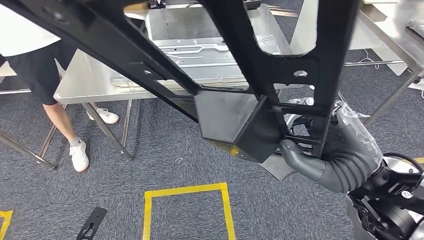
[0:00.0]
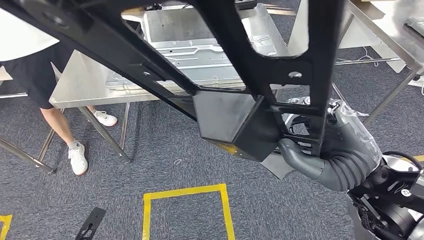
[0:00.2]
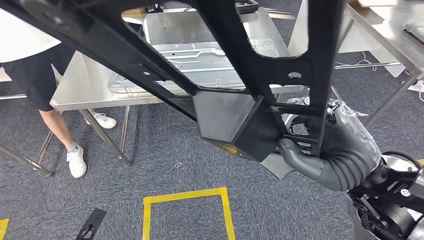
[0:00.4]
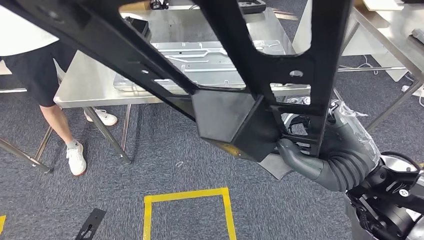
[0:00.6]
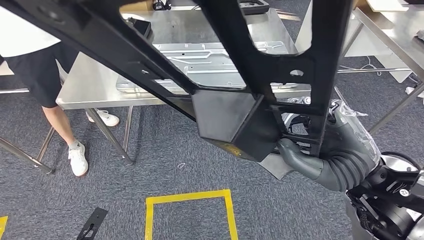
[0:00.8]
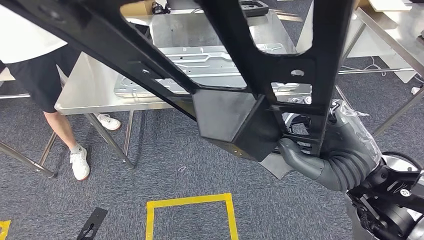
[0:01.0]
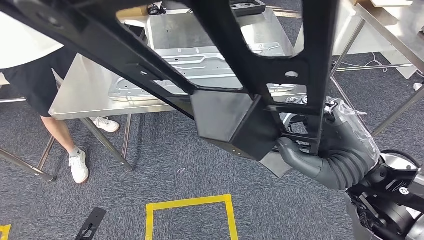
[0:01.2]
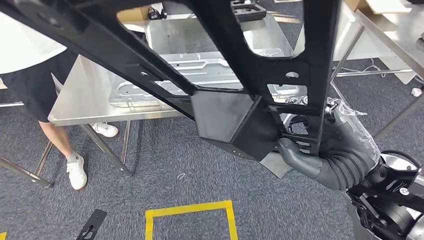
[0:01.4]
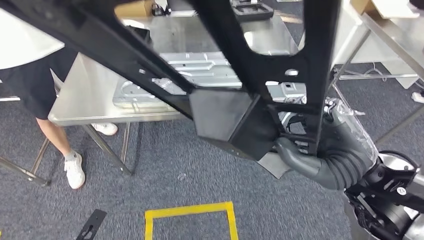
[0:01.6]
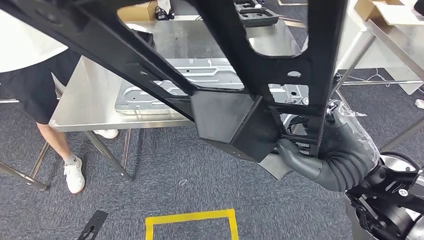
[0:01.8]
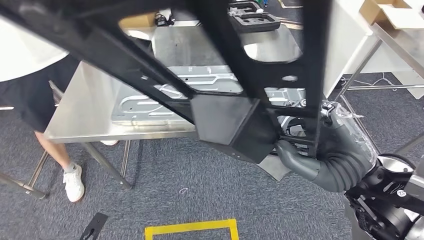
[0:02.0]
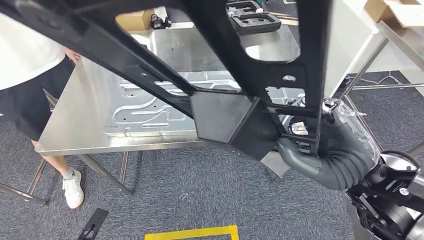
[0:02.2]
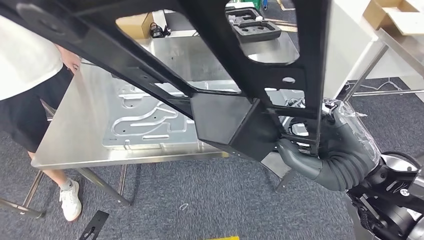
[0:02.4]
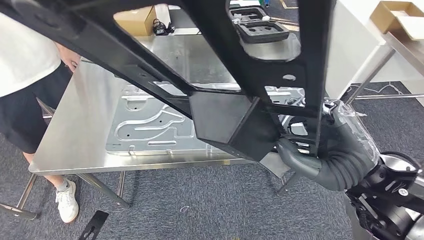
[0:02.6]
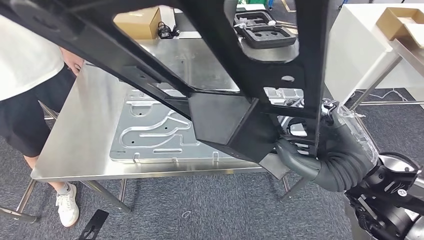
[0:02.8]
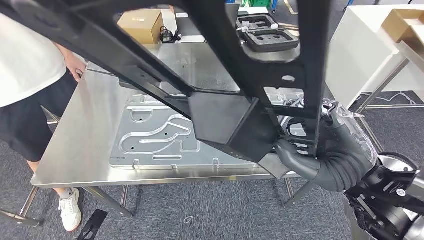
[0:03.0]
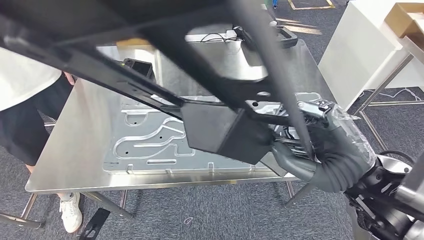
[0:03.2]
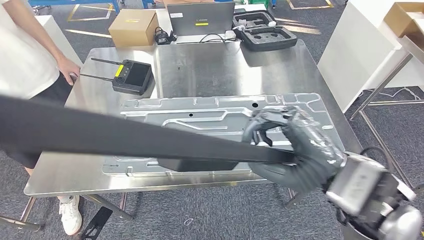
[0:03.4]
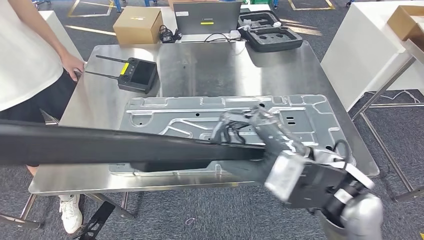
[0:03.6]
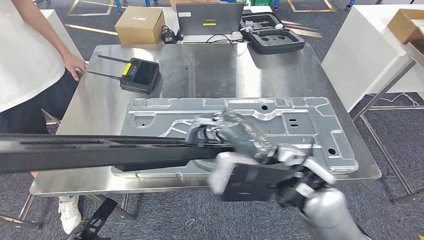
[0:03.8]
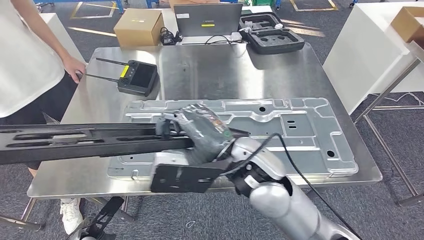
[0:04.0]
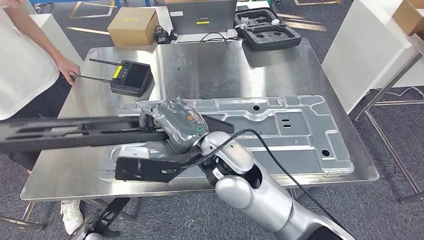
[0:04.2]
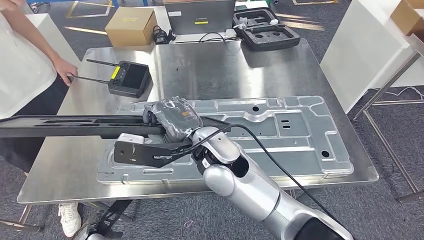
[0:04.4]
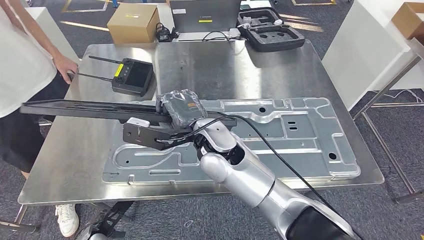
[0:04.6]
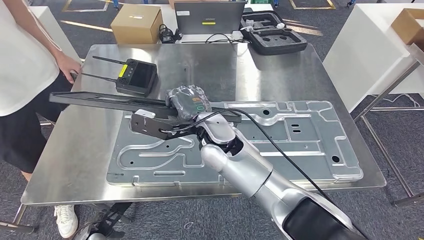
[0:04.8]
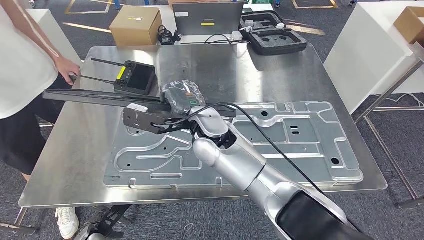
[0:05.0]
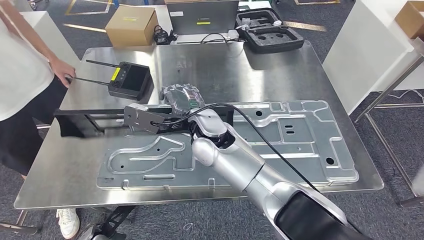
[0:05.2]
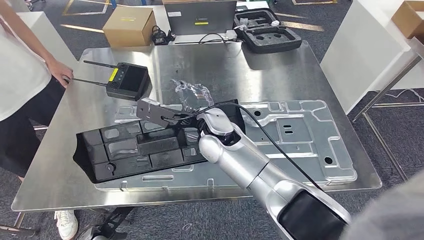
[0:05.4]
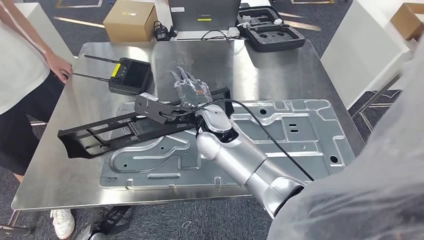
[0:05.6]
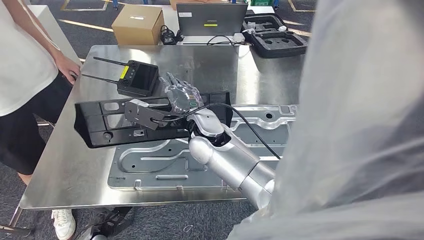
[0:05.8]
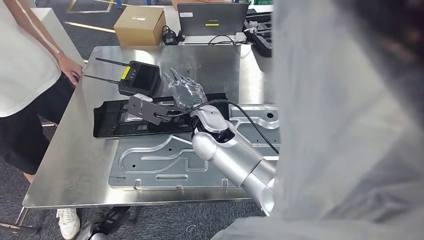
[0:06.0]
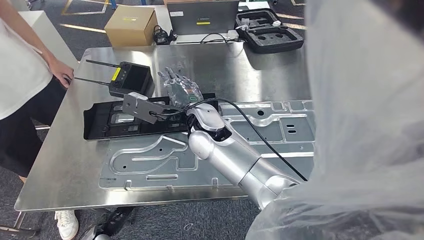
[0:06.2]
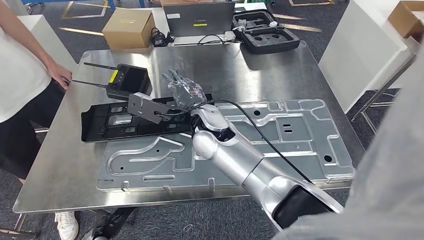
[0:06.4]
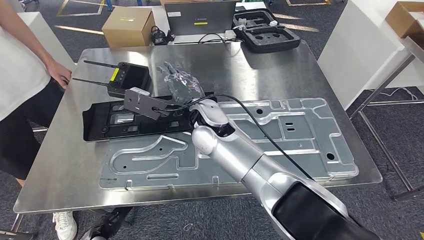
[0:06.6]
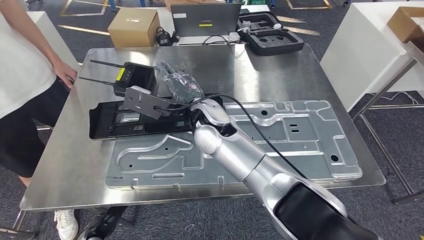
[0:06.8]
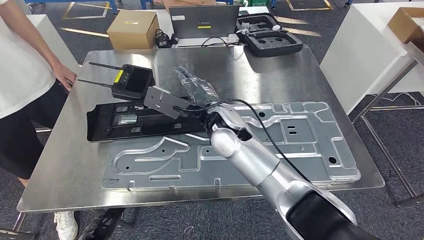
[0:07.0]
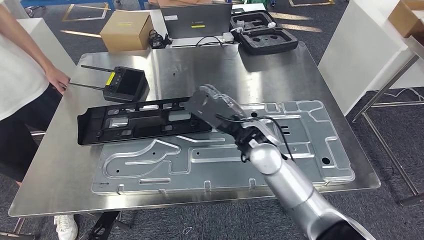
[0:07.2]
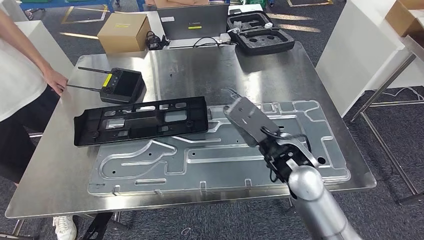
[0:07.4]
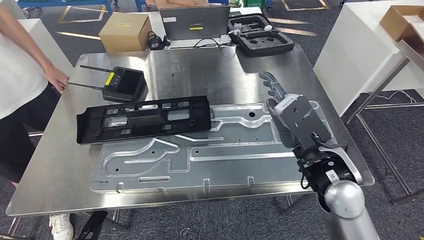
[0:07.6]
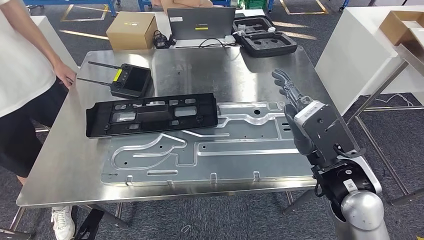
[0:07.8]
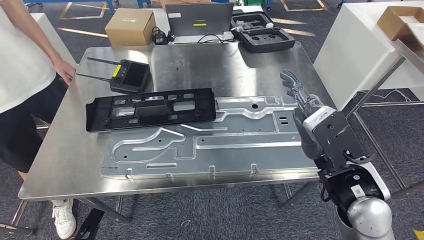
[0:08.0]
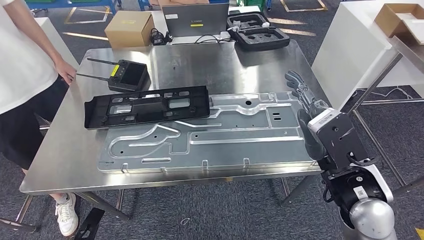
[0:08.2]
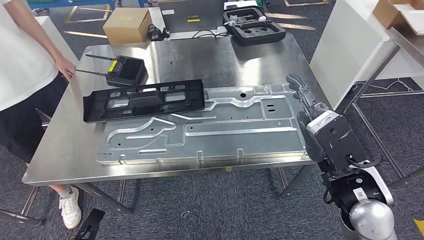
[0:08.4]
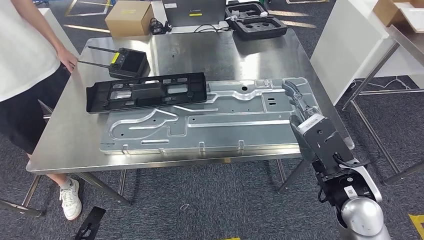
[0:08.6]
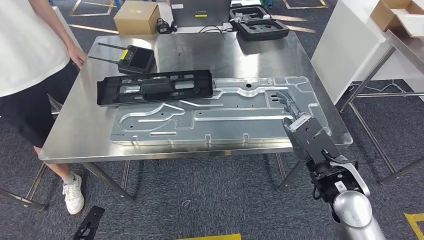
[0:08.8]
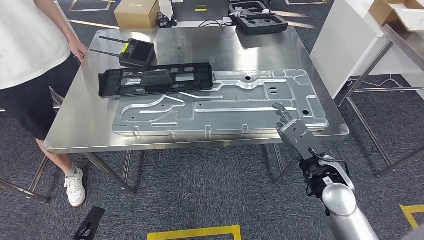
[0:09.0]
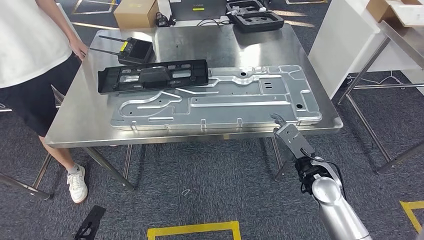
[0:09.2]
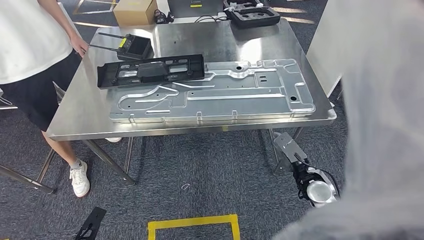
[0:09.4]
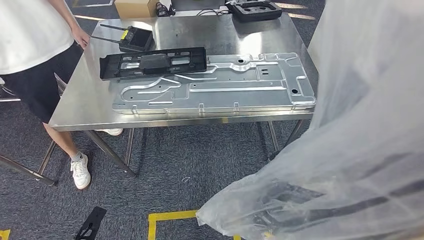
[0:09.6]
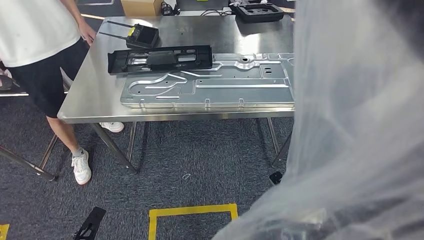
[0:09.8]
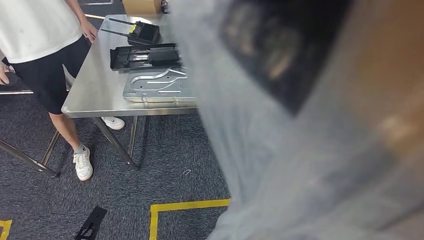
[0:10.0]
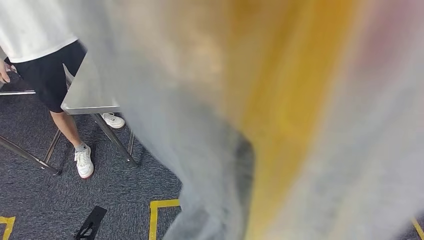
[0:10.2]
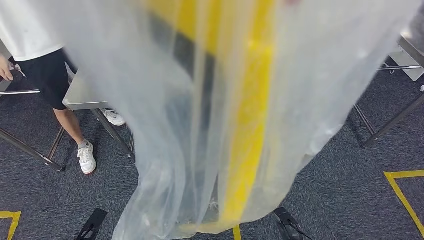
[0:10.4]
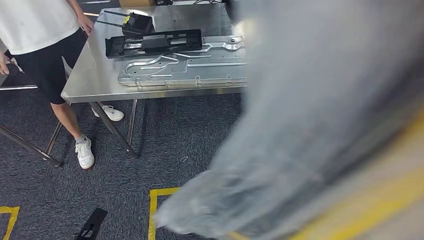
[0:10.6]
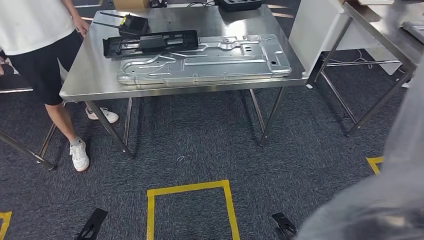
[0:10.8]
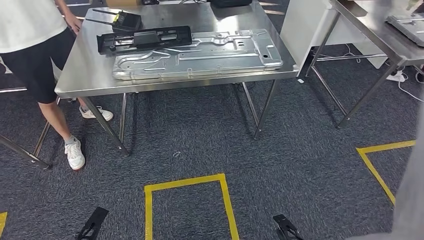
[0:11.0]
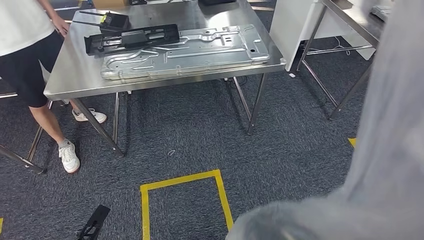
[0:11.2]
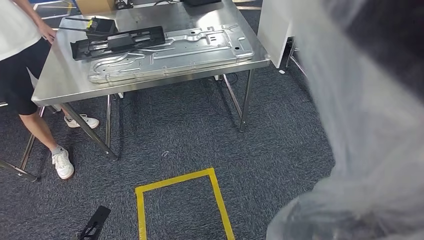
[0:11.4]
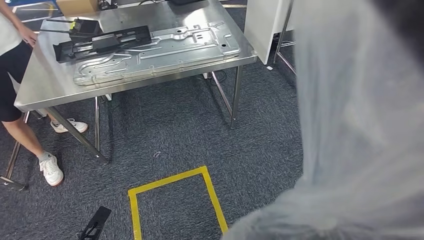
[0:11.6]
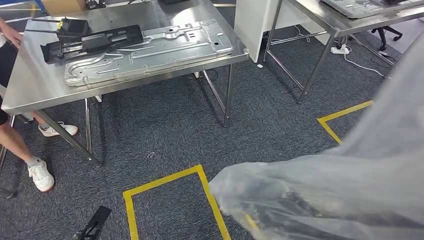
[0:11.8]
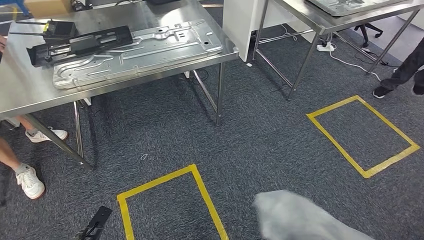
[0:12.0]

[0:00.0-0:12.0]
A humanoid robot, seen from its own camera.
Step, 0:00.0 to 0:04.8: Move the large material to the workbench.
Step, 0:05.4 to 0:08.0: Insert the large material into the corresponding slot on the workbench.

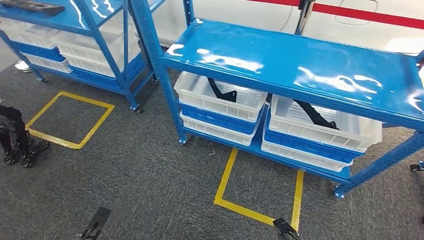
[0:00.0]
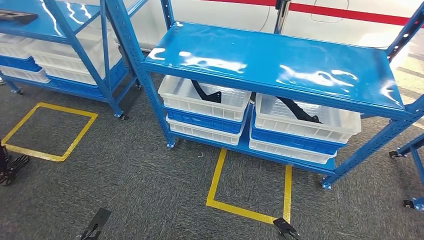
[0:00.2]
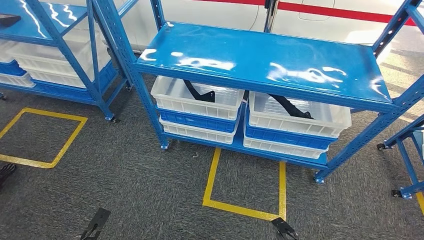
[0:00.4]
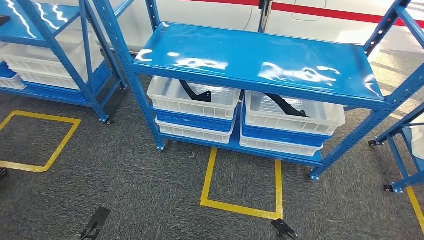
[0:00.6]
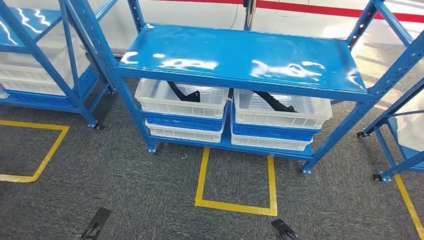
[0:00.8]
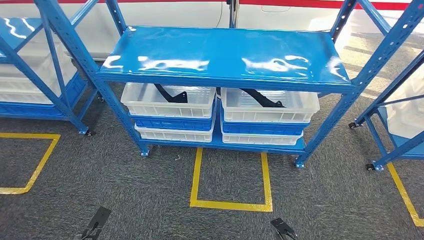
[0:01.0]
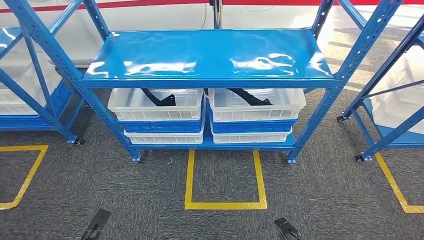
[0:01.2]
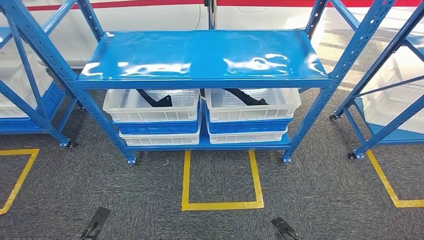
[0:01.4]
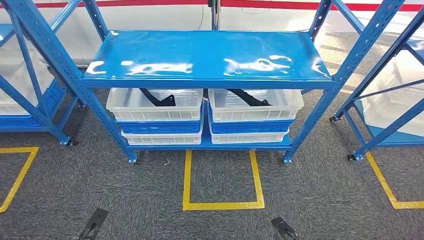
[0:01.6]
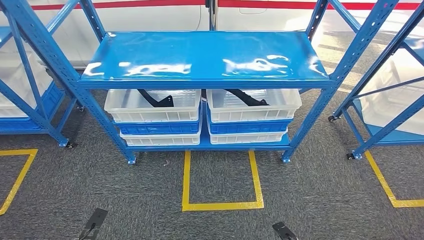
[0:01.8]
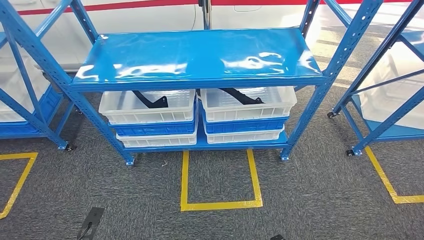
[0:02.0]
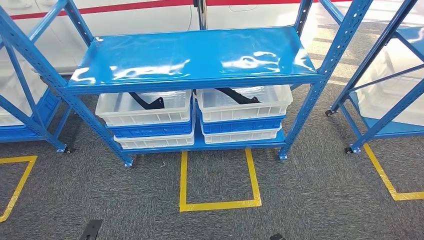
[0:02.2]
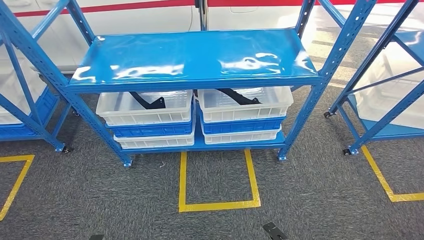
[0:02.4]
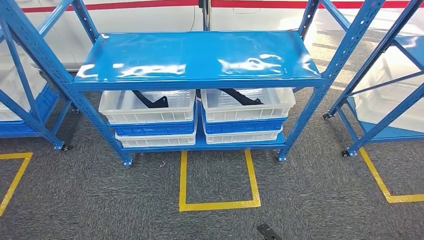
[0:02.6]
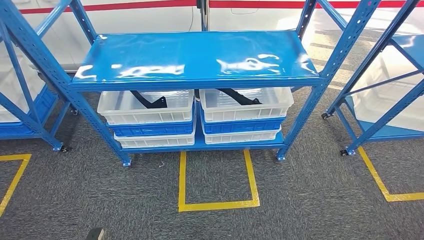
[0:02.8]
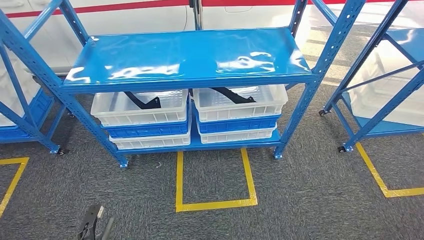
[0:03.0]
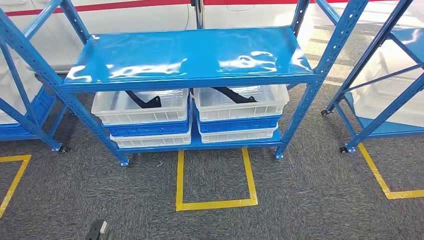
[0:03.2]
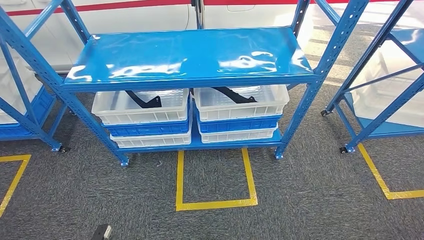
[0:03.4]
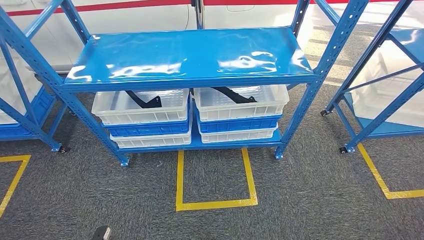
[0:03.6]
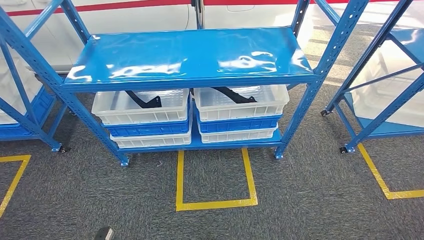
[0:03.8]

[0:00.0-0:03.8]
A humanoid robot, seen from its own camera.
Step, 0:00.0 to 0:03.8: Return to the initial position at the shelf.
